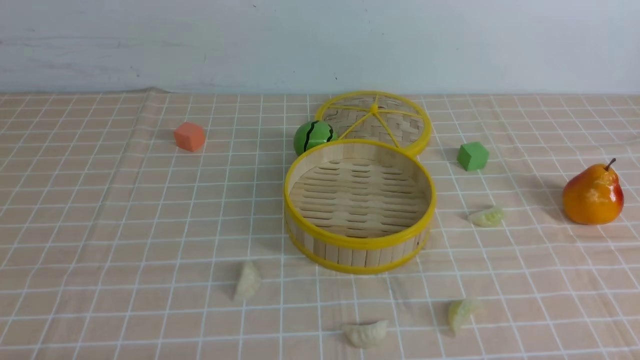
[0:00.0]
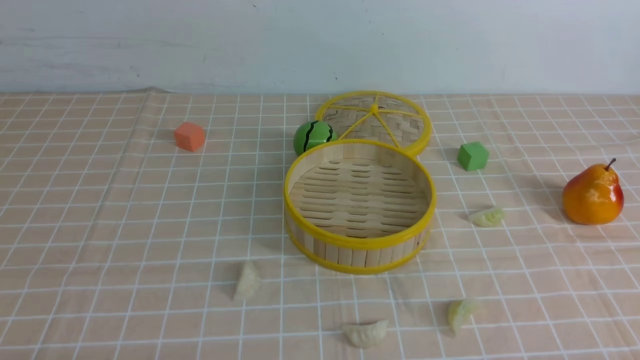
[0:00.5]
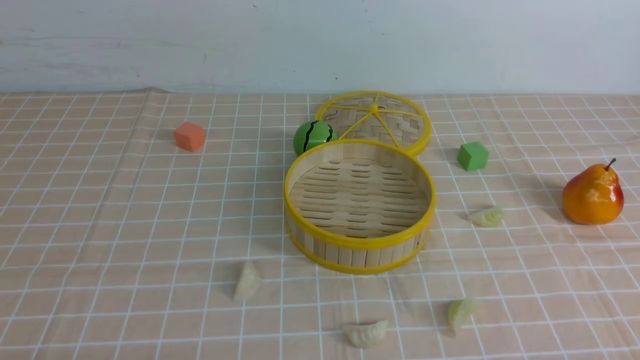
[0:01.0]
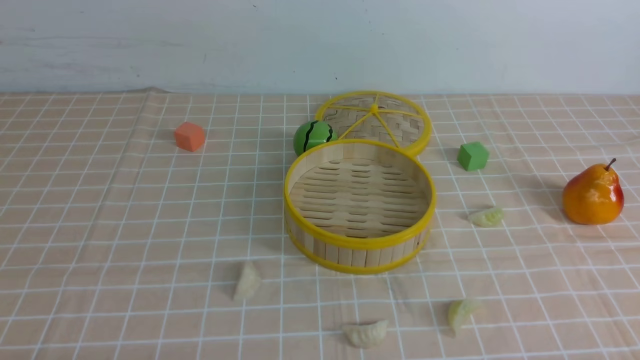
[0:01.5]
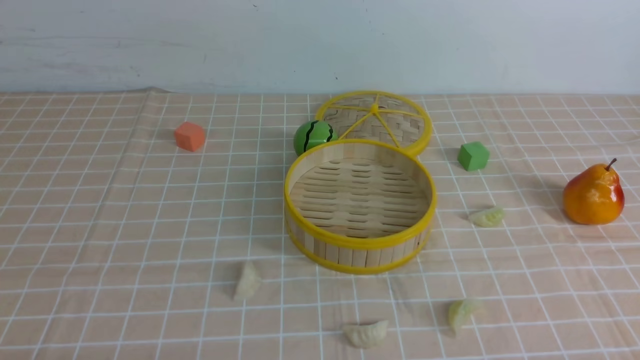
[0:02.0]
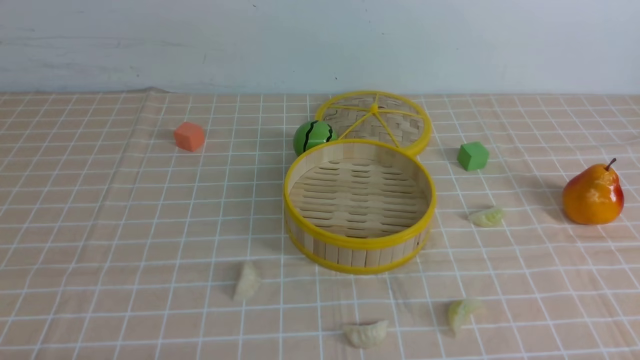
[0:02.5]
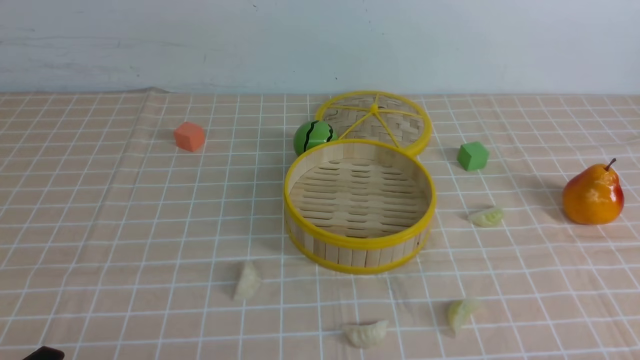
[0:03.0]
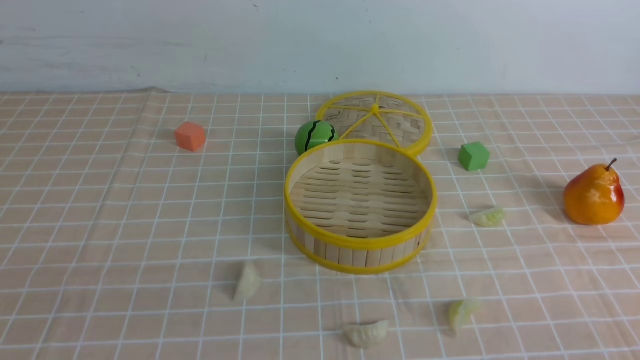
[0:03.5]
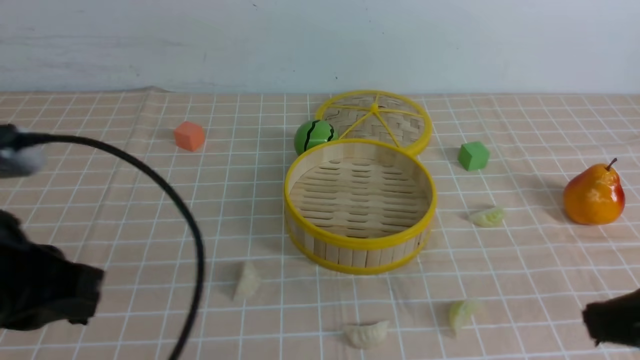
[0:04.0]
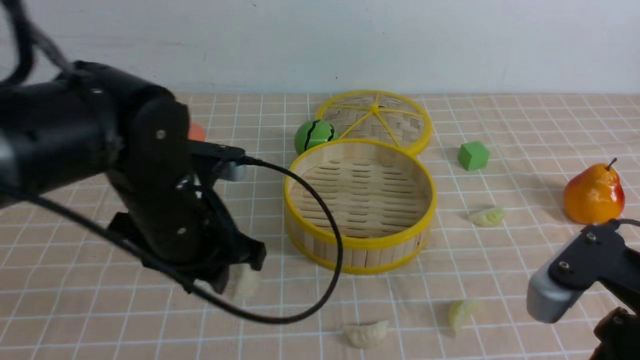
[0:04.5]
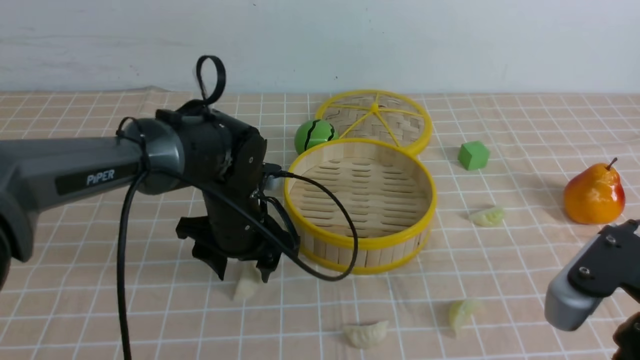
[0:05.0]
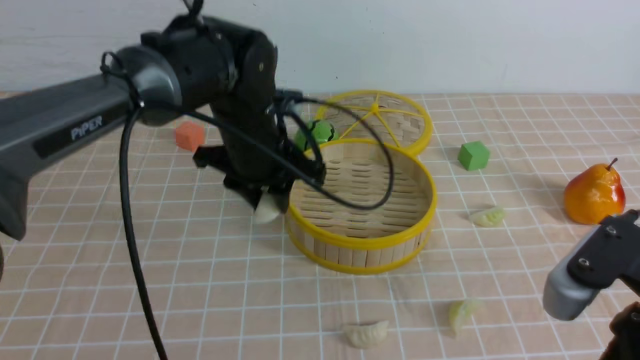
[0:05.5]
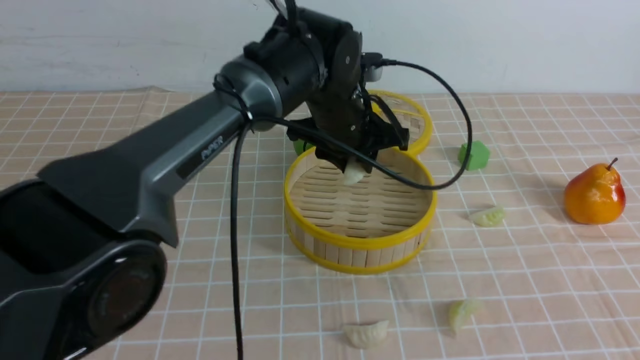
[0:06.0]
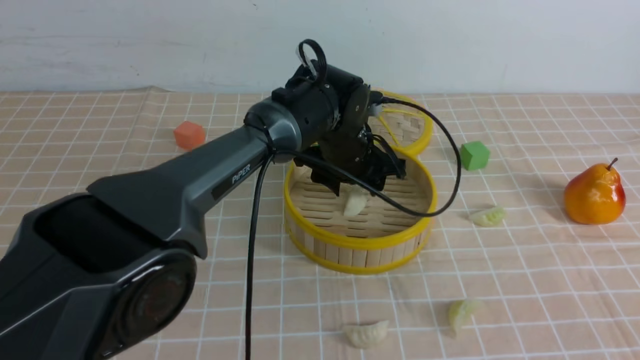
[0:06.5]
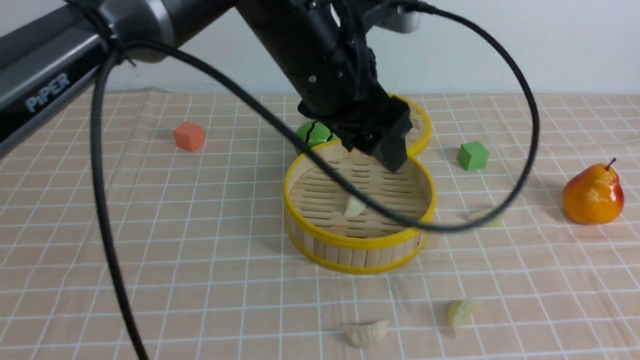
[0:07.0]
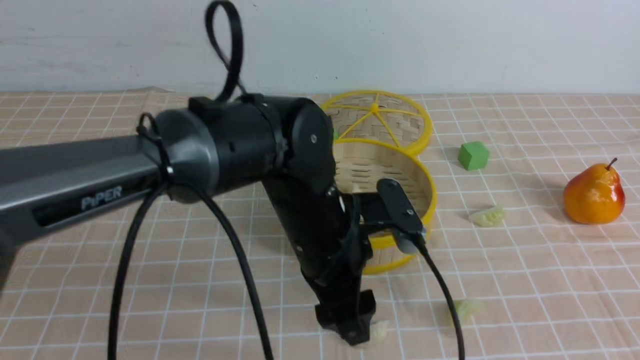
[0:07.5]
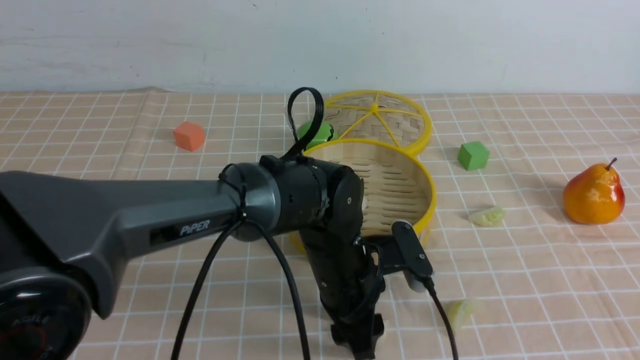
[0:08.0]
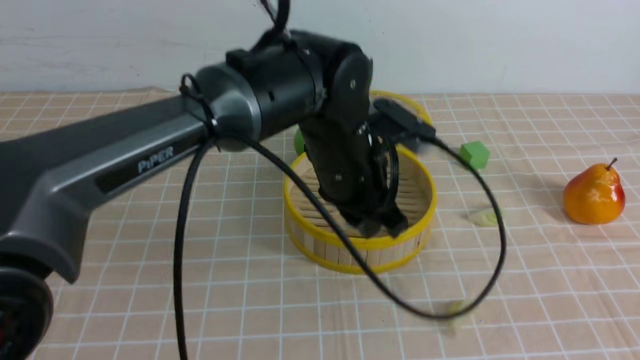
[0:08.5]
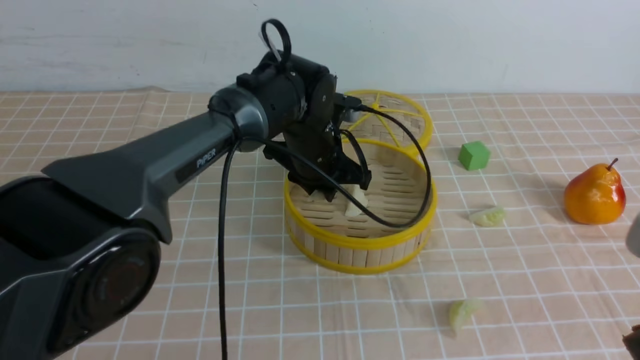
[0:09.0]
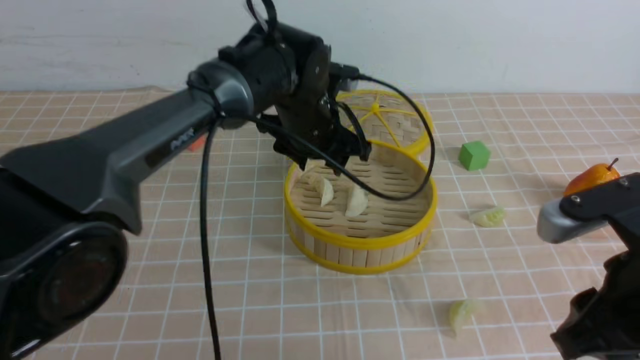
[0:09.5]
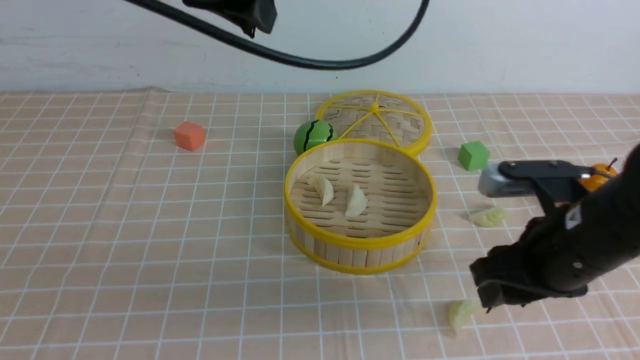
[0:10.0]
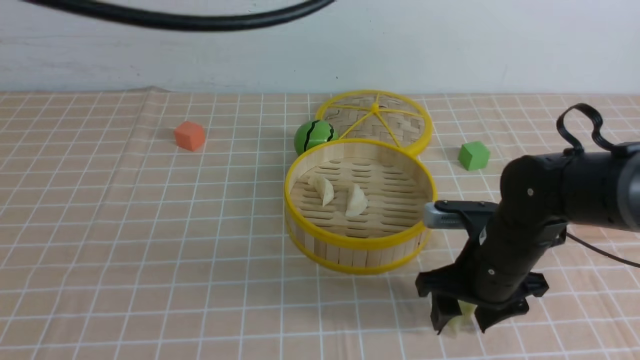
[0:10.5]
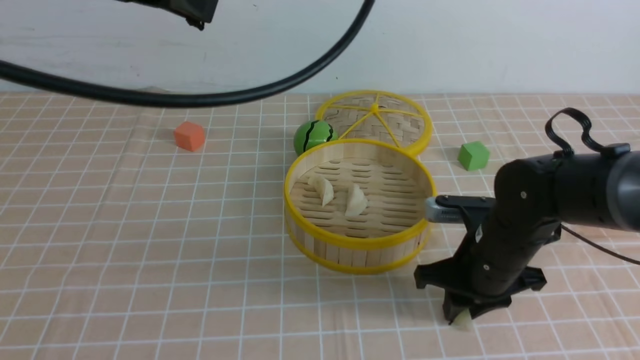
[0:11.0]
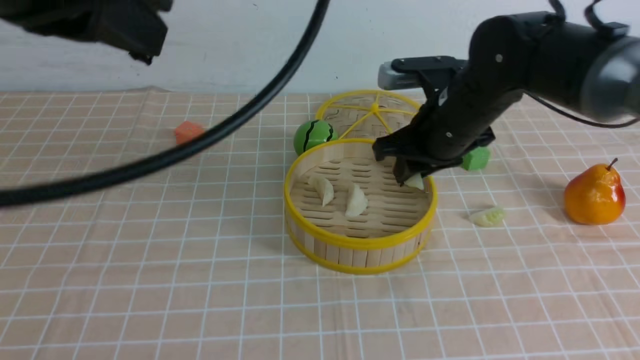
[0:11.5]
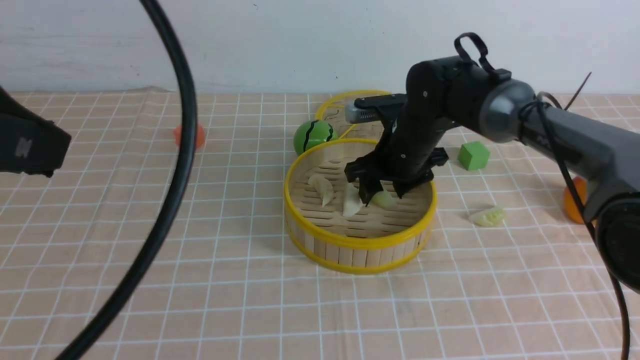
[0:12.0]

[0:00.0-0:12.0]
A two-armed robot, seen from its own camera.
Task of the whole recording: put the dumplings into the steamer on the table with the brown tablecloth.
Step, 0:00.0 to 0:05.0: use the left arm to grab a dumpling.
Step, 0:05.5 to 0:06.5: use the left arm to put the dumpling into the steamer.
Step, 0:07.0 to 0:08.0: use the left arm to grab a dumpling.
Step, 0:08.5 to 0:09.5: use the left arm to put the dumpling into the steamer.
Step, 0:10.0 to 0:10.5: use the right arm to grab a dumpling.
0:00.0 to 0:02.0: Neither gripper changes place.
0:02.0 to 0:04.0: The left gripper heads upward and forward, covering approximately 20 cm, and closes, while the right gripper is displaced upward, forward and to the left by some 20 cm, and closes its fingers.
0:04.0 to 0:06.0: The right gripper shifts by approximately 5 cm; the left gripper travels forward and to the right by approximately 35 cm, and opens up.
0:06.0 to 0:08.0: The left gripper shifts about 15 cm backward and downward.
0:08.0 to 0:10.0: The right gripper goes approximately 20 cm forward and downward, and opens its fingers; the left gripper moves up and down over approximately 30 cm, changing direction 2 times, and closes its fingers.
0:10.0 to 0:12.0: The right gripper heads forward and to the left, covering roughly 20 cm, and closes, then opens again. Meanwhile the left gripper heads backward and to the left, covering some 20 cm.

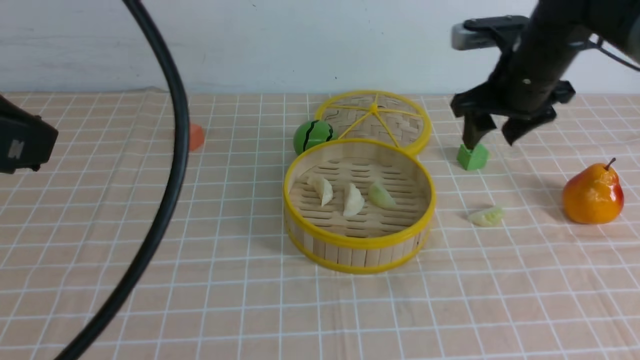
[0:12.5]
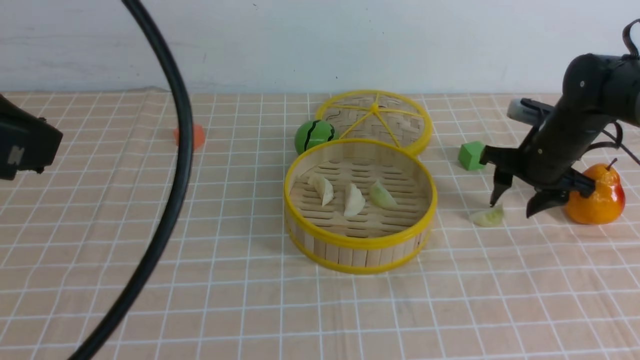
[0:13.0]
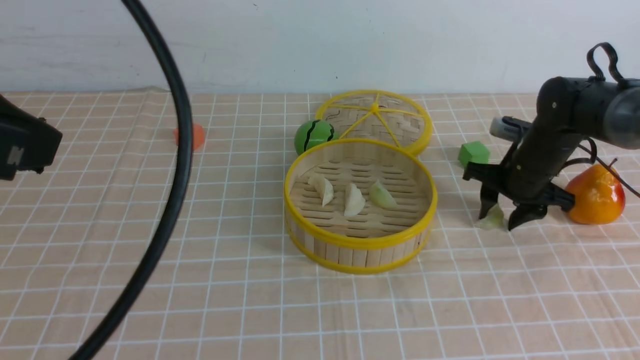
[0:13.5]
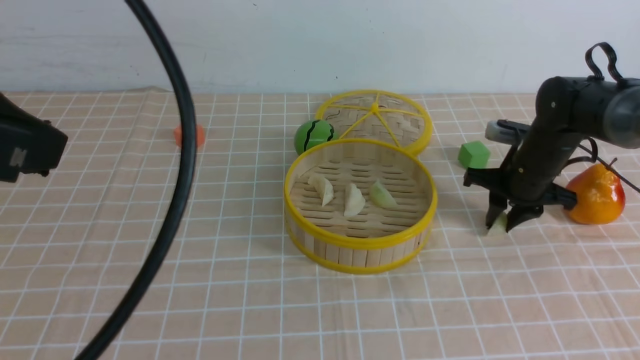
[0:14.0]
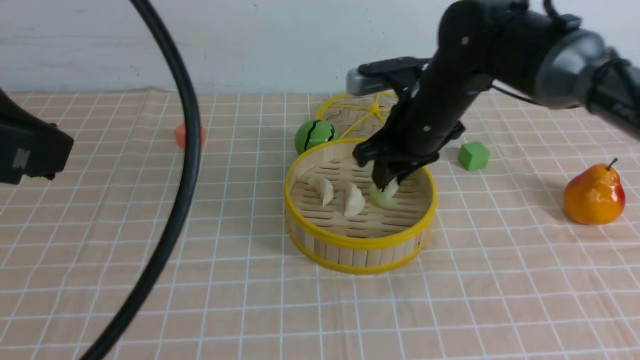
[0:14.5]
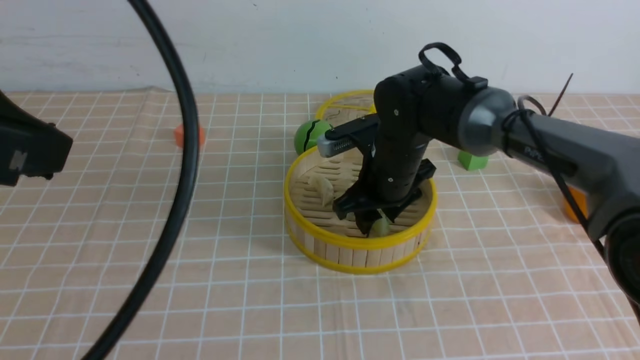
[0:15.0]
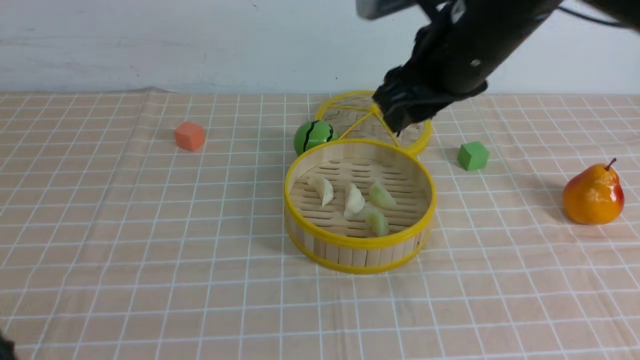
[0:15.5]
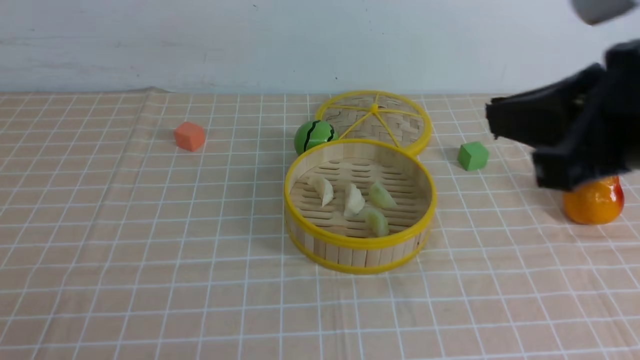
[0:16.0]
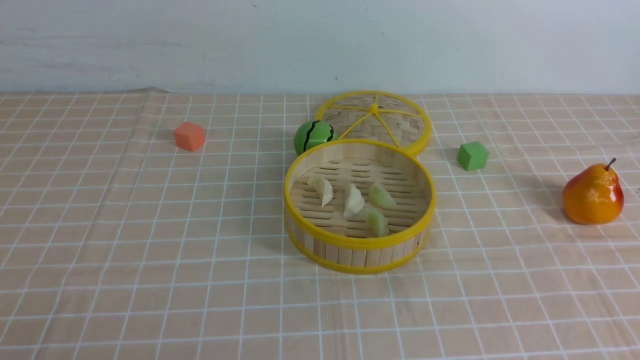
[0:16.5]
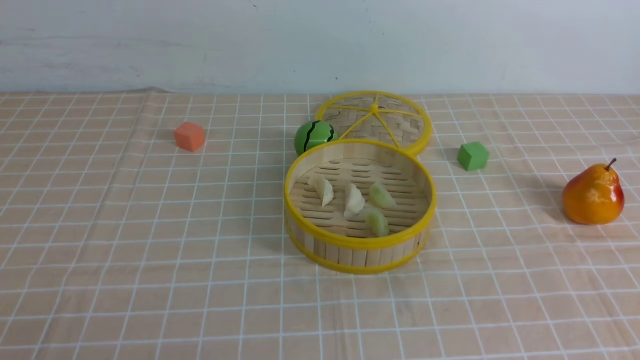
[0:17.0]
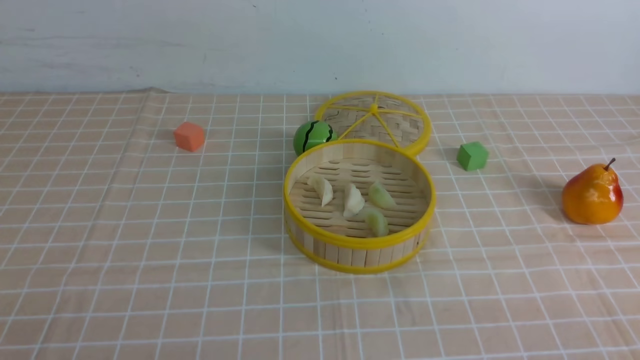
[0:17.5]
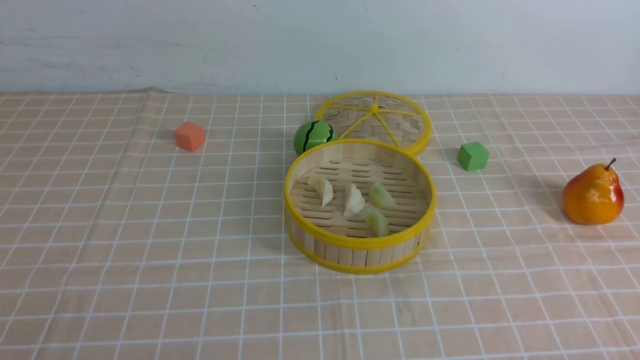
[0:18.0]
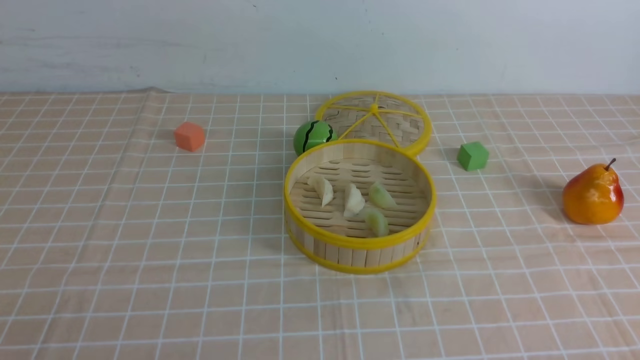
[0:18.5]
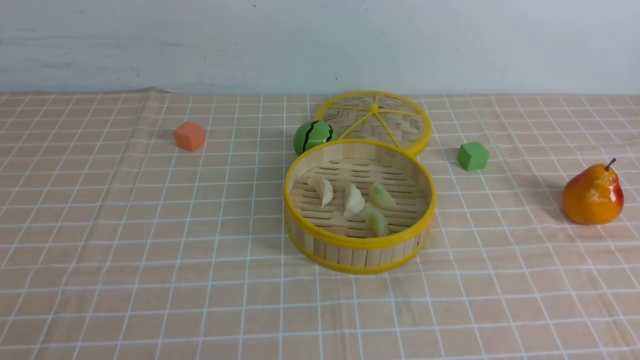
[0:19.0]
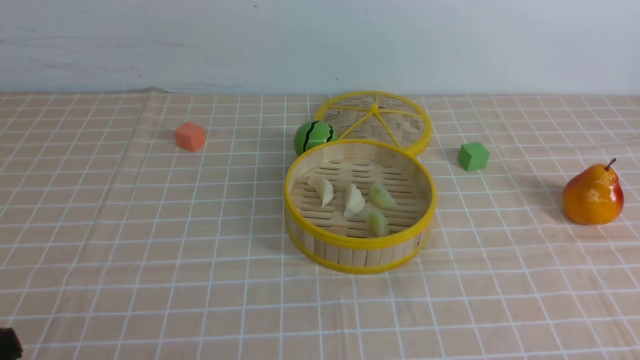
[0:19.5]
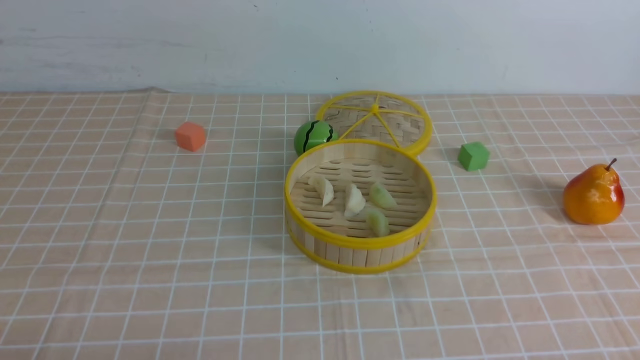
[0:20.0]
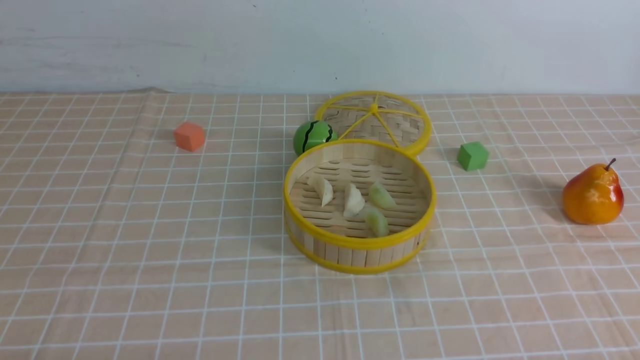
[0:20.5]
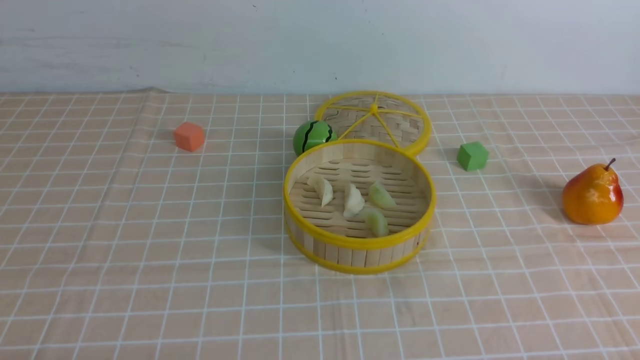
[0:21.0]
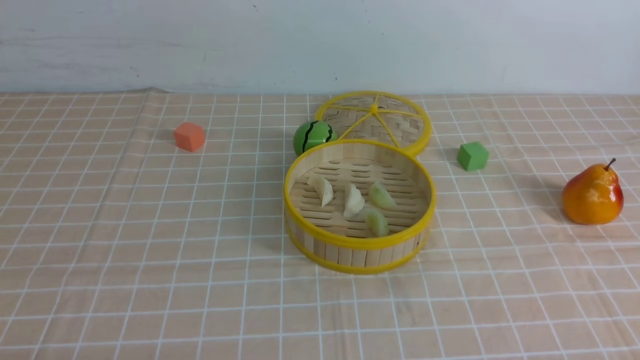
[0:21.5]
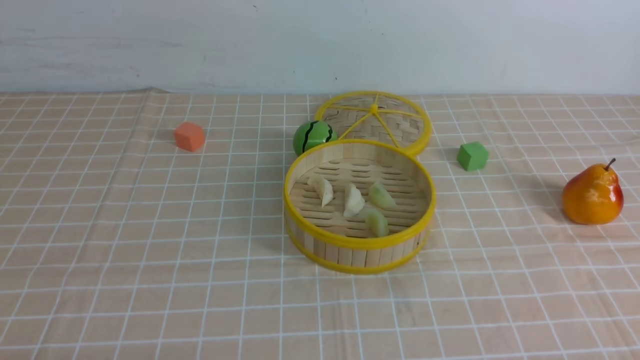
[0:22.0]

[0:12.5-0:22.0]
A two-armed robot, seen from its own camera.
Task of the whole recording: put the dumplings into the steamer on the table with the brown tablecloth.
Step, 0:12.5 to 0:13.5: use the right arm to grab a dumpling.
Step, 0:14.0 to 0:15.0: use the right arm to put the dumpling into the steamer.
0:12.5 to 0:14.5: The right gripper moves to the left, roughly 10 cm, and closes its fingers.
0:14.5 to 0:16.5: The right gripper shifts some 35 cm backward and upward, and closes up; the left gripper heads downward, backward and to the left, covering approximately 20 cm.
